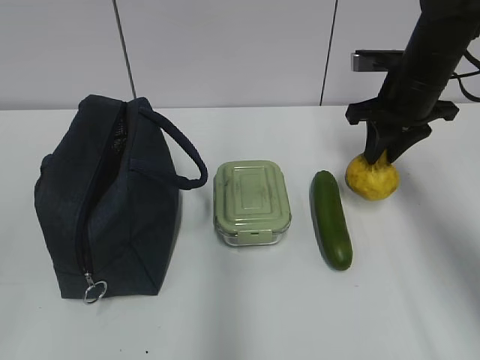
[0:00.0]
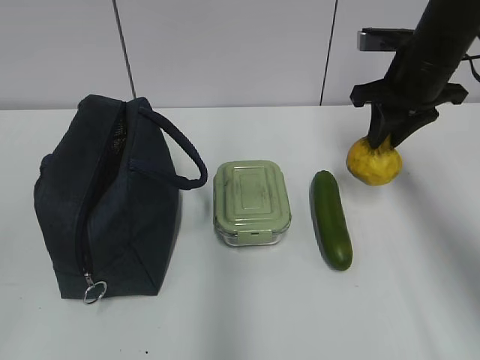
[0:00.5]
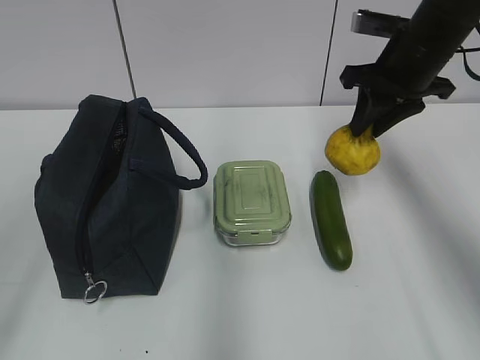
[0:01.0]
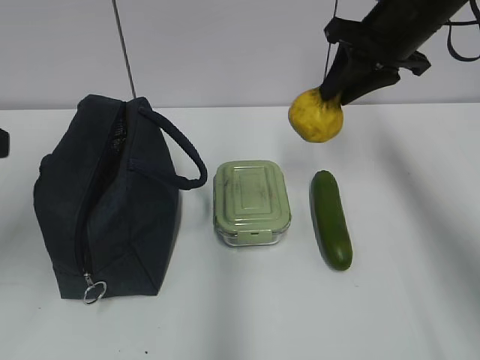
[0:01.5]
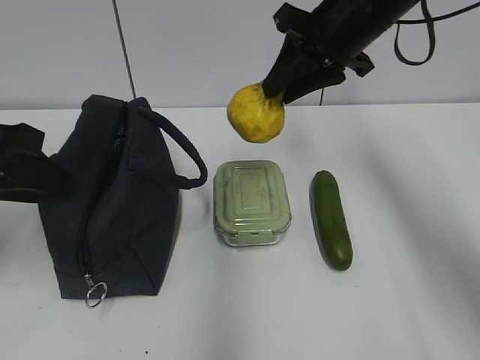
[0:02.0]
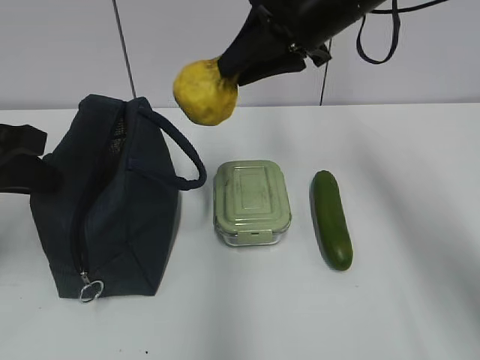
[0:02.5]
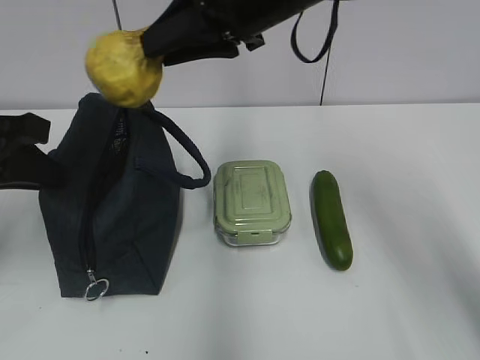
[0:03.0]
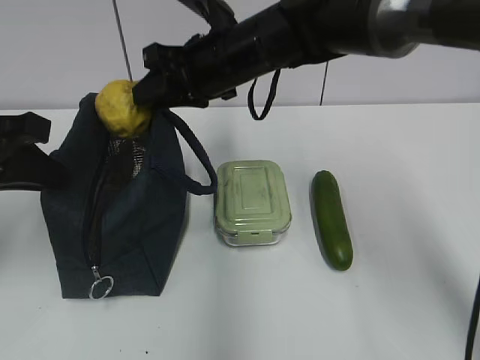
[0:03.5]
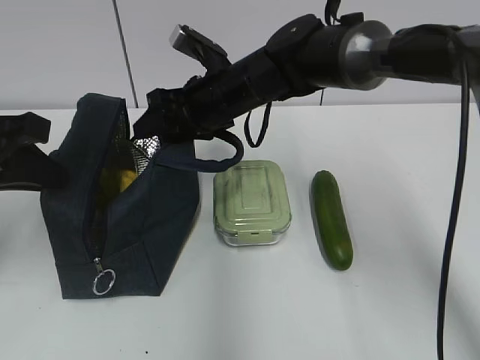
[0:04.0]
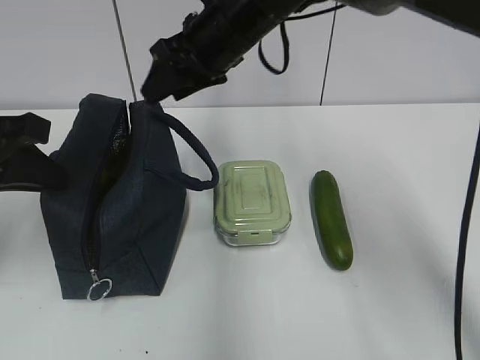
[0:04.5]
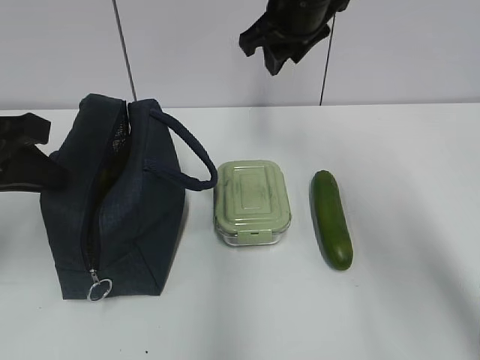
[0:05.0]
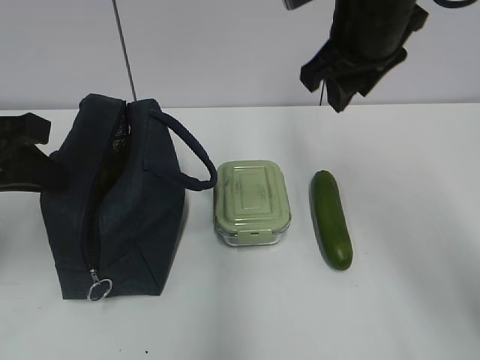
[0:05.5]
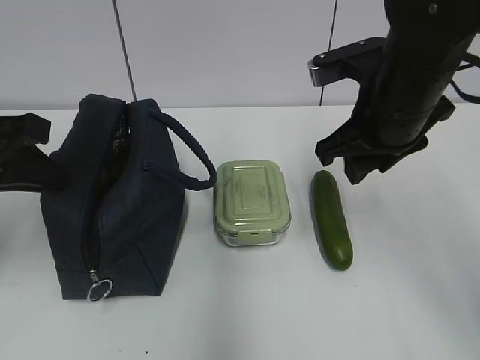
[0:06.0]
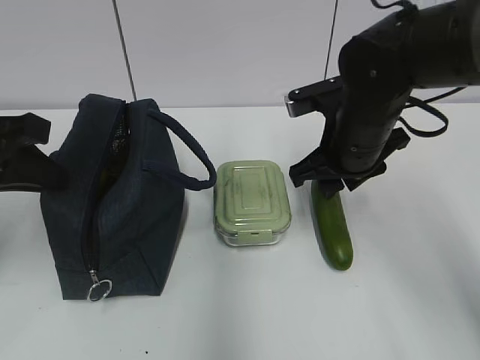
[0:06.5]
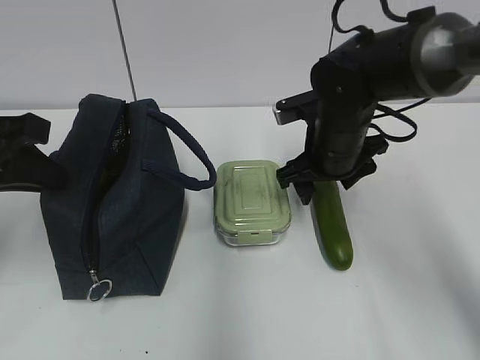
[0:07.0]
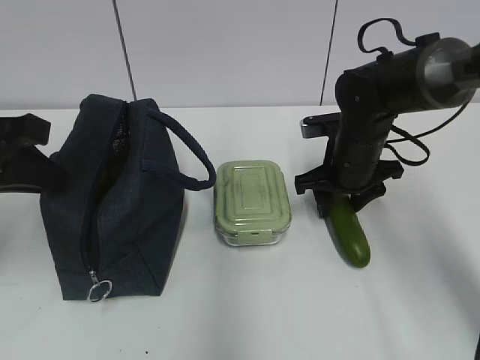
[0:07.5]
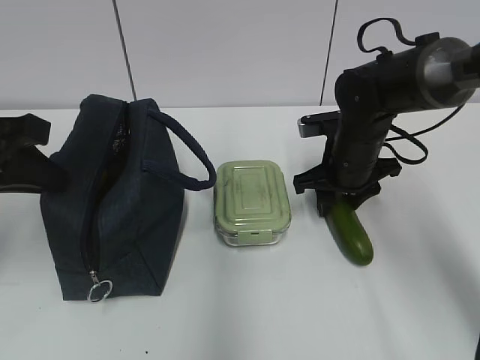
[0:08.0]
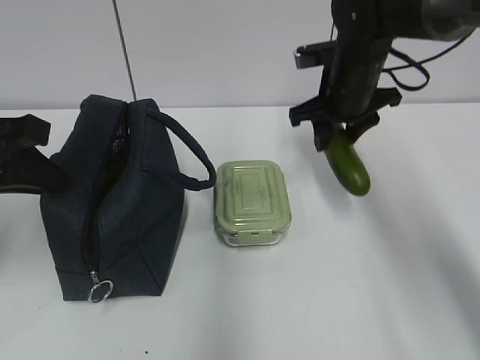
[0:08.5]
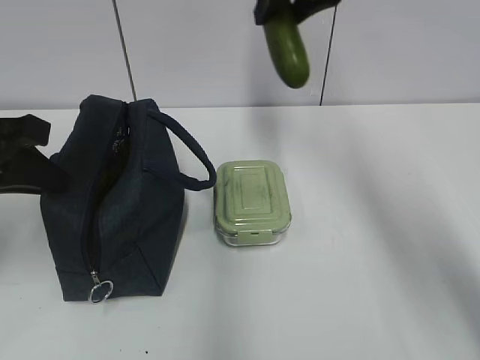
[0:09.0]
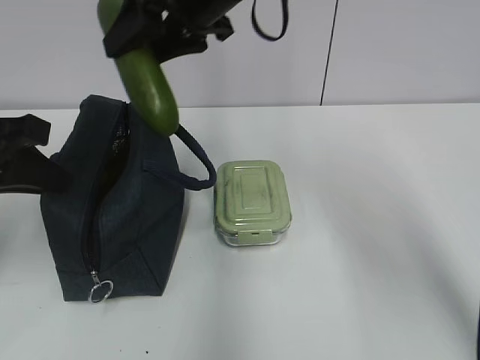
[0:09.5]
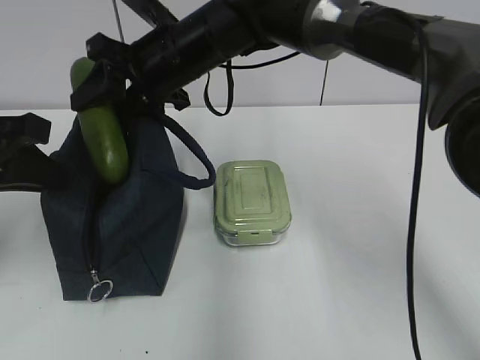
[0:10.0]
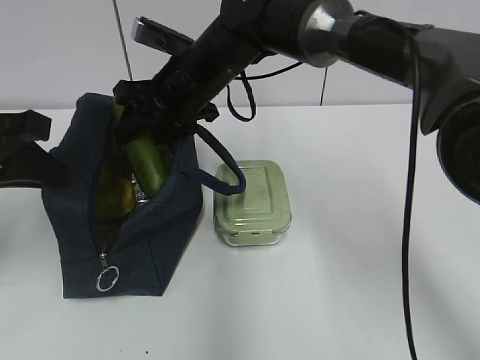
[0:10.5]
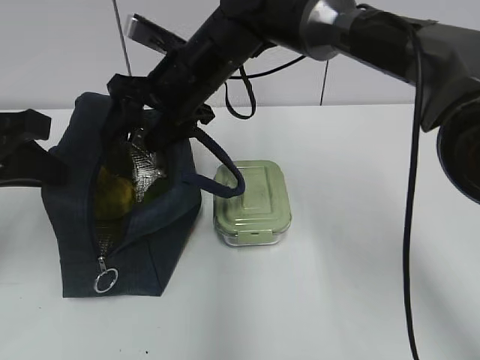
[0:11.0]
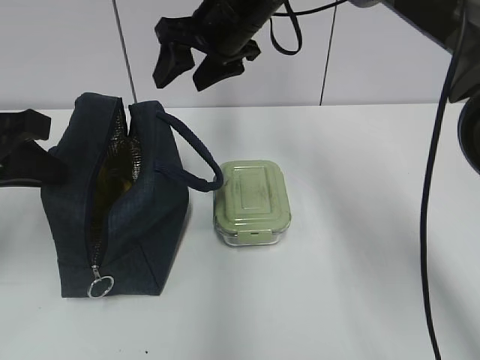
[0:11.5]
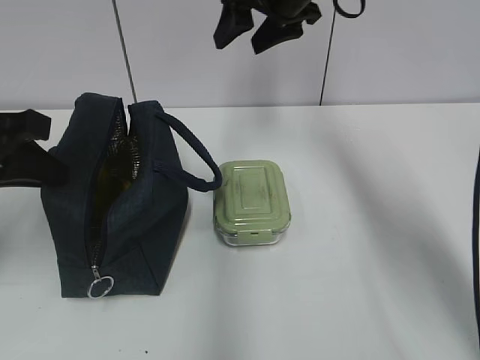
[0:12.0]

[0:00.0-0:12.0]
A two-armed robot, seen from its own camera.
0:00.0 to 0:02.0: The right gripper is displaced upward and to the left by about 10 cm, while the left gripper goes roughly 25 cm forward.
0:02.0 to 0:04.0: The left gripper closes its fingers, while the right gripper goes approximately 15 cm to the left and downward.
0:04.0 to 0:06.0: The right gripper moves to the right and backward, about 20 cm.
0:06.0 to 0:08.0: The right gripper is displaced downward and forward by roughly 15 cm.
0:08.0 to 0:10.0: The right gripper is displaced to the left and upward by about 25 cm.
0:10.0 to 0:12.0: The right gripper is displaced to the right and upward by approximately 15 cm.

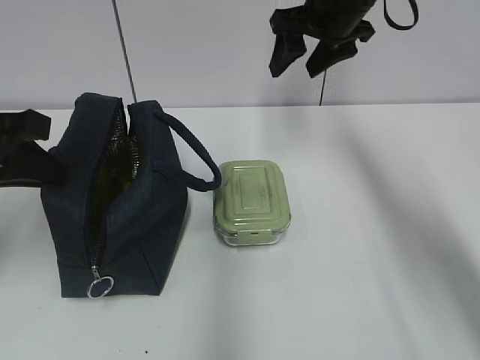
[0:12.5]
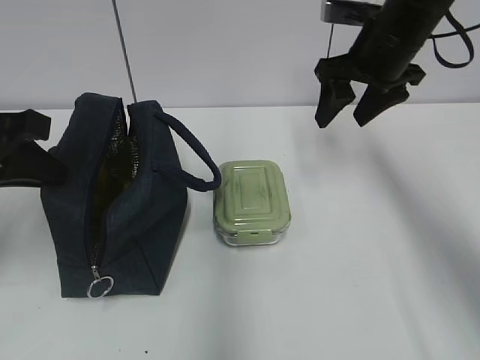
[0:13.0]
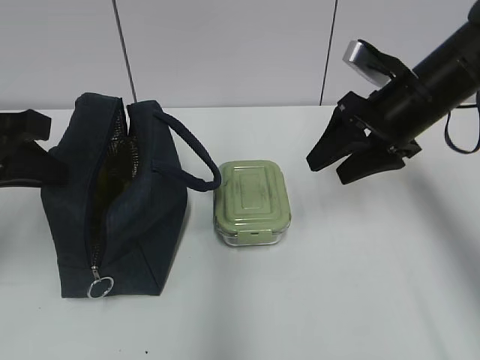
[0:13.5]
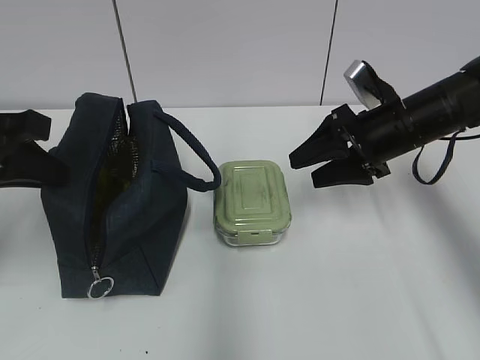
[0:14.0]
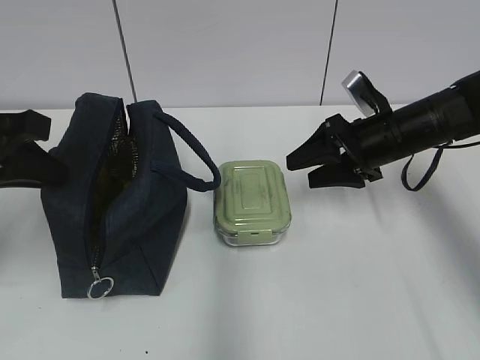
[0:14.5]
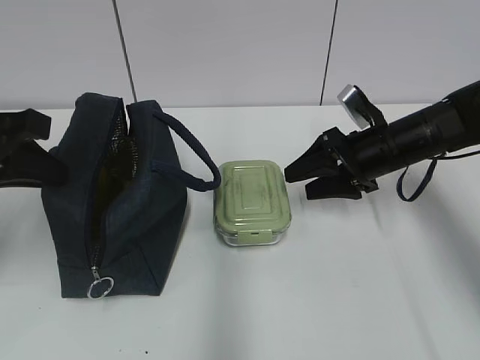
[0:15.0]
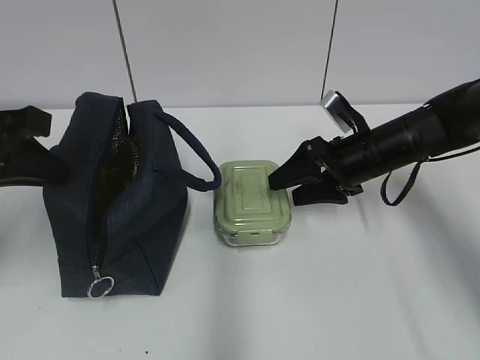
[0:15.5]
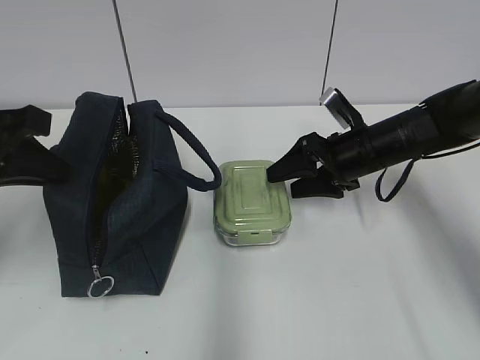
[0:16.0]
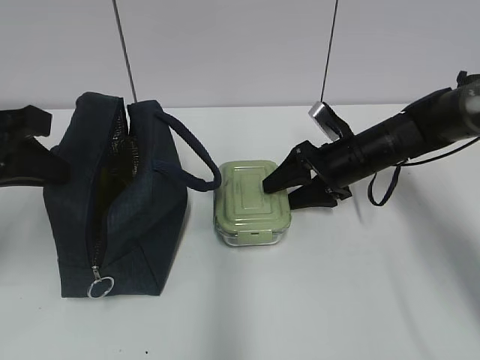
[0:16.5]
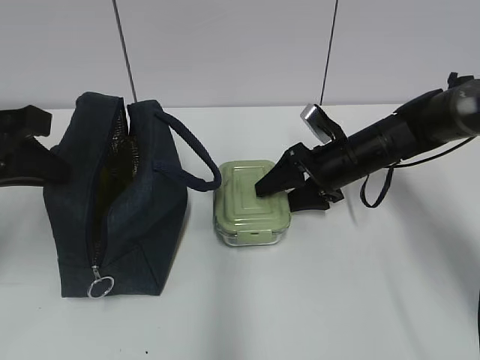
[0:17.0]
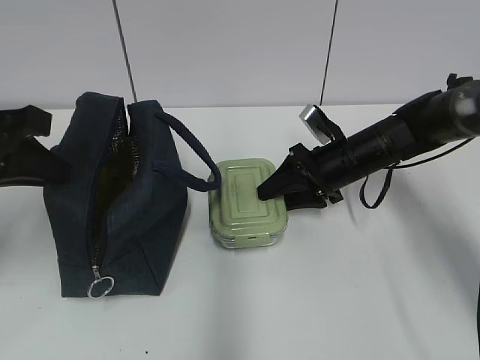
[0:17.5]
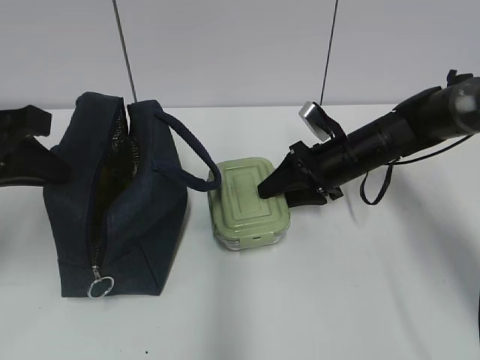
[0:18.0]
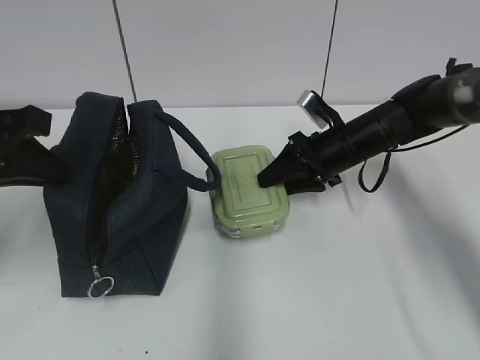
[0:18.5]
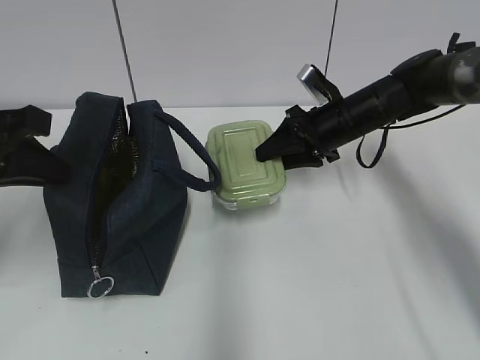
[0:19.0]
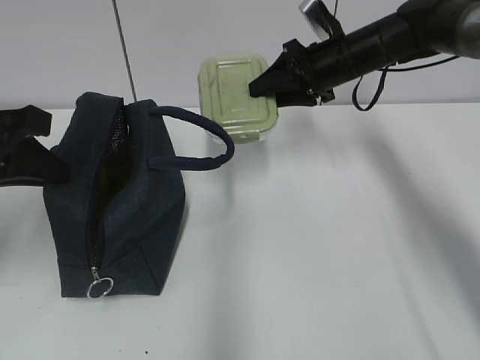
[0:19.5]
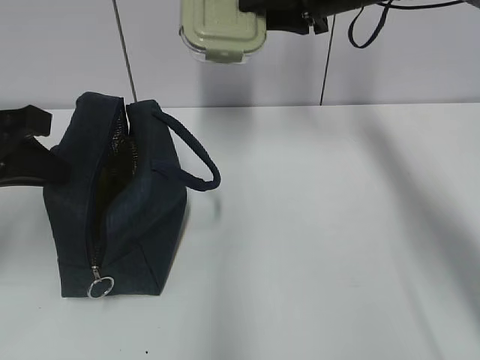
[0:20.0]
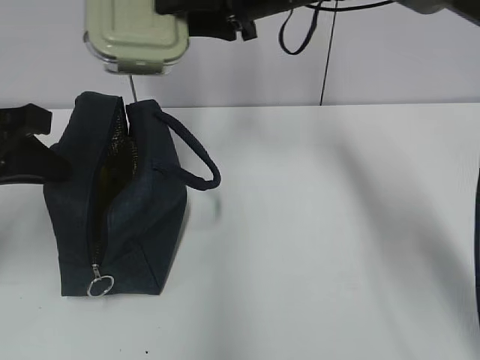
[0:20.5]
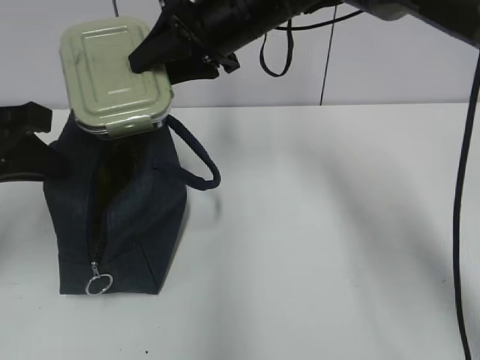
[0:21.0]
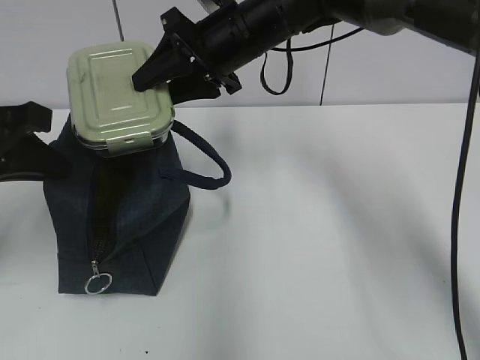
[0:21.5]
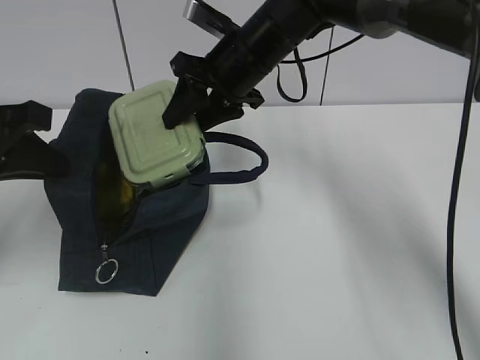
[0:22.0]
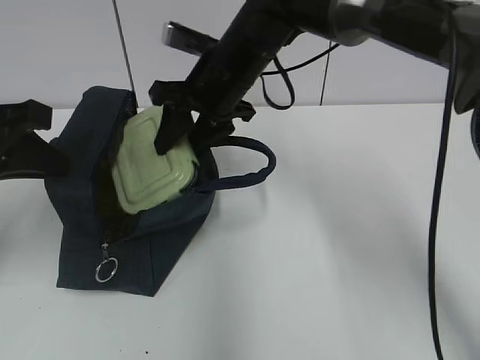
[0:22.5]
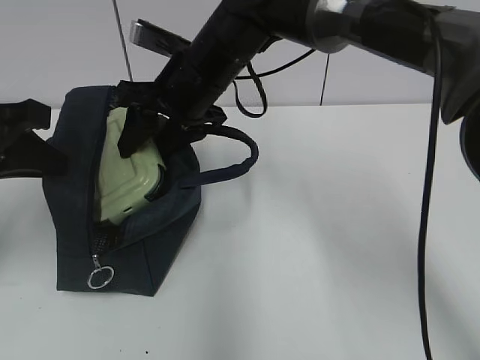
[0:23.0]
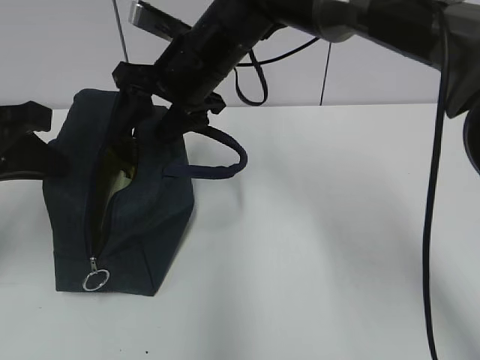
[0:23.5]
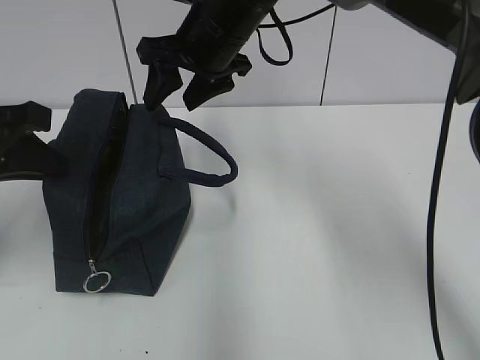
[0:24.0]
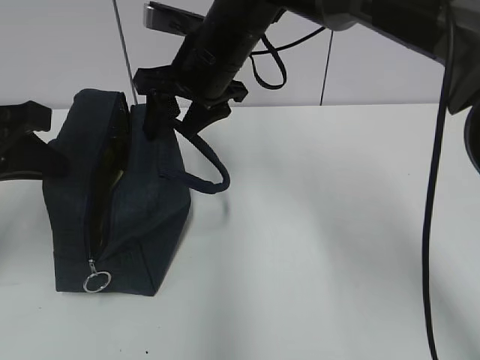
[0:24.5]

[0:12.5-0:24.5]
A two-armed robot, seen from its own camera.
0:12.5 to 0:14.5: The right gripper shifts about 20 cm downward, backward and to the right.
0:14.5 to 0:16.5: The right gripper heads downward, covering approximately 5 cm.
0:16.5 to 0:18.5: The right gripper closes up.
0:18.5 to 0:20.5: The right gripper heads upward and to the left, covering roughly 20 cm.
0:20.5 to 0:22.5: The right gripper shifts roughly 10 cm downward and to the left.
0:22.5 to 0:24.5: The grippers stay close to where they were, moving slightly.

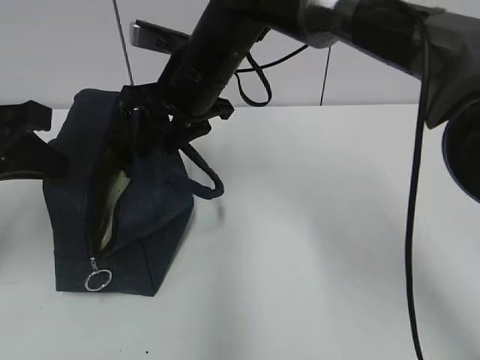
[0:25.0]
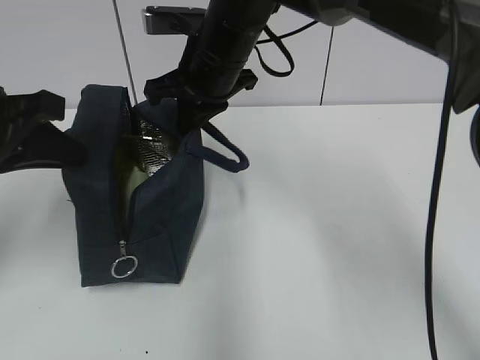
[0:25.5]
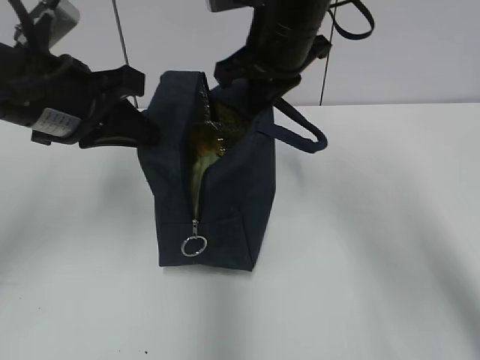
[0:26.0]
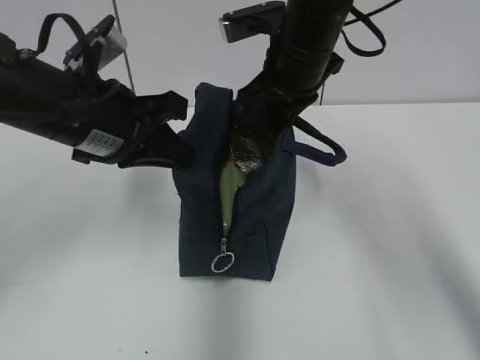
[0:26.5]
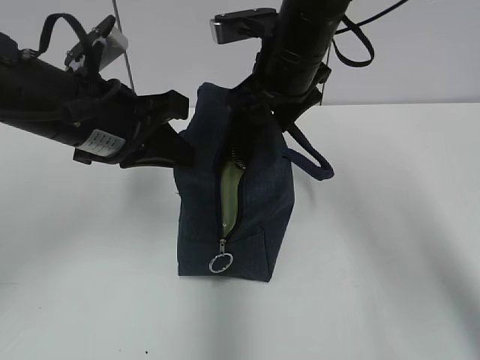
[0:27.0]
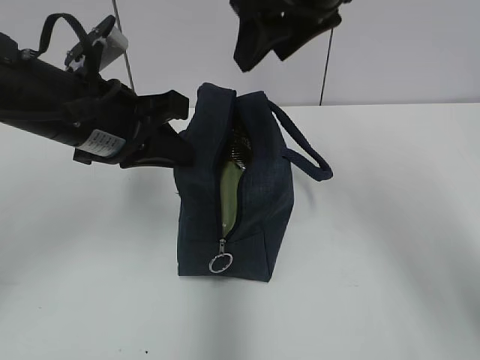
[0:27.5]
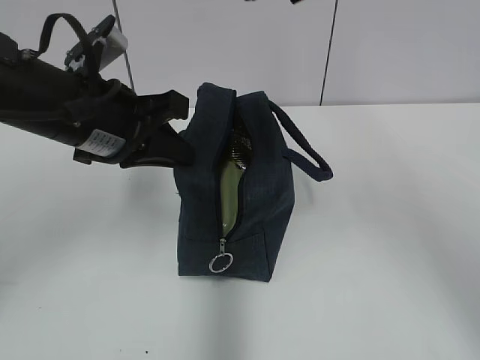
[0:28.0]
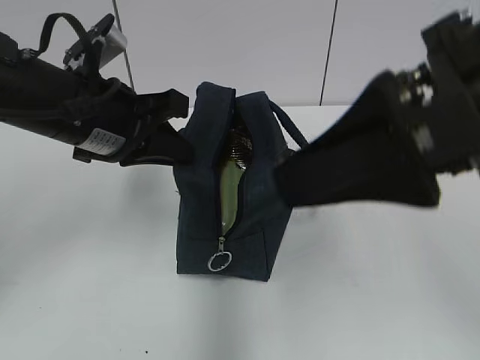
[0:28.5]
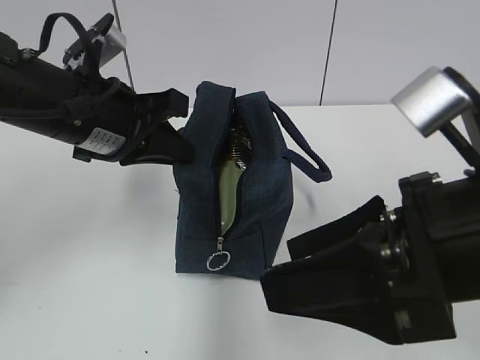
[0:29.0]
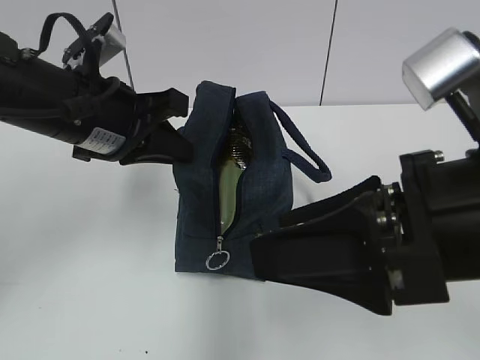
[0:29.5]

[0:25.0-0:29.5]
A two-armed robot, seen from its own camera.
0:25.0 to 0:27.0: Both grippers travel together to the right, roughly 10 cm. The right gripper opens up.
0:27.0 to 0:29.5: The right gripper shifts some 25 cm backward.
